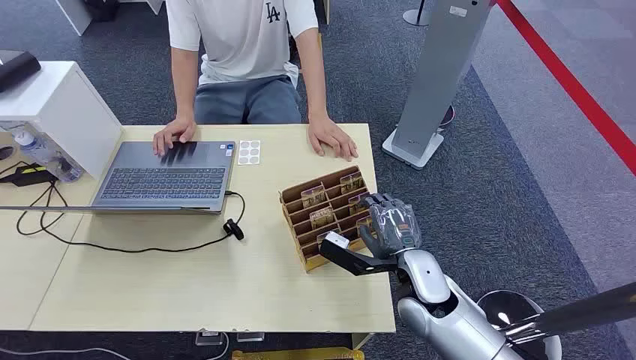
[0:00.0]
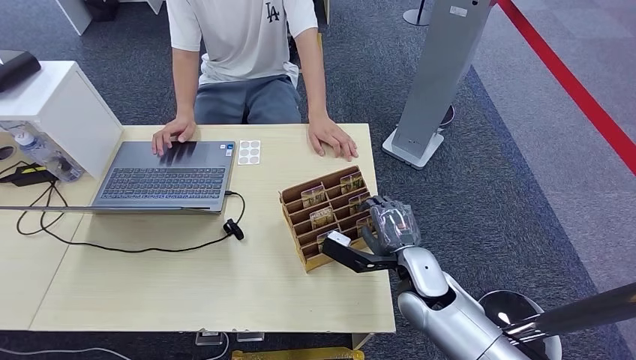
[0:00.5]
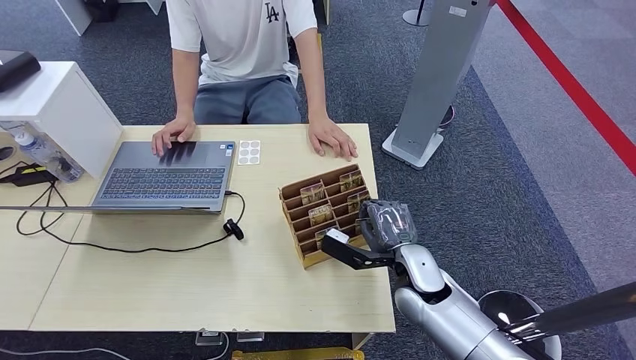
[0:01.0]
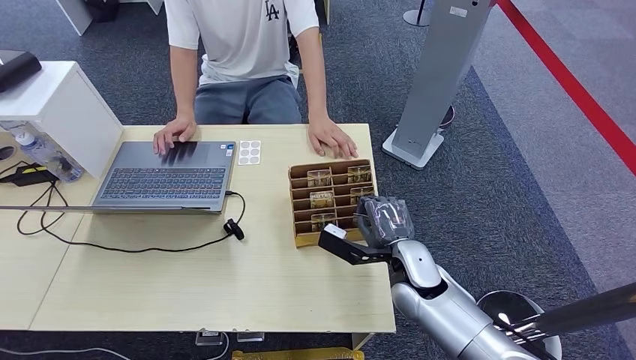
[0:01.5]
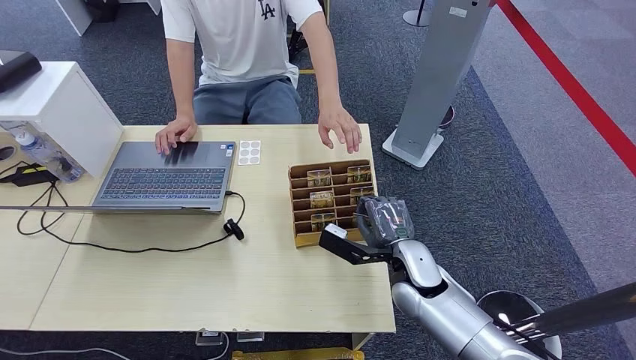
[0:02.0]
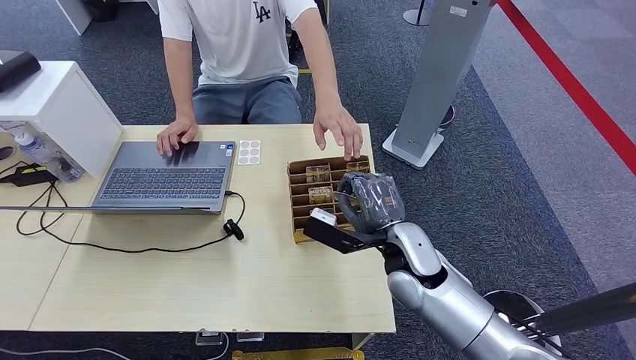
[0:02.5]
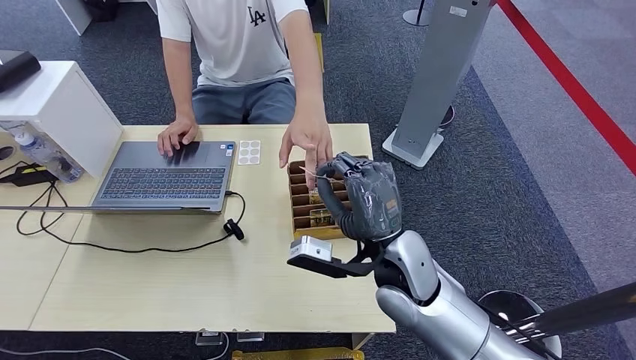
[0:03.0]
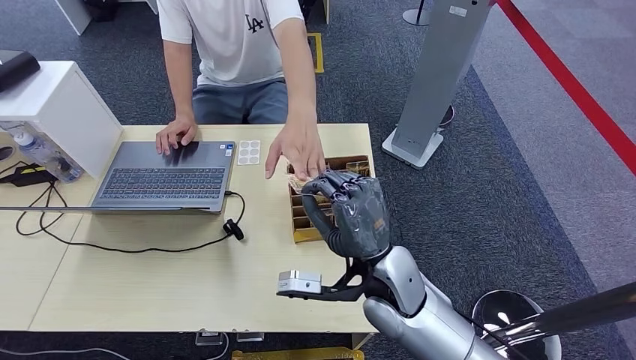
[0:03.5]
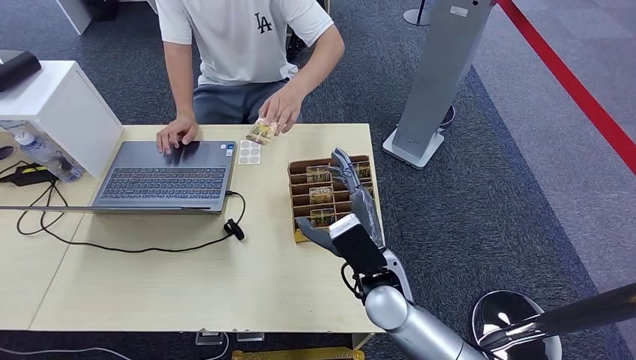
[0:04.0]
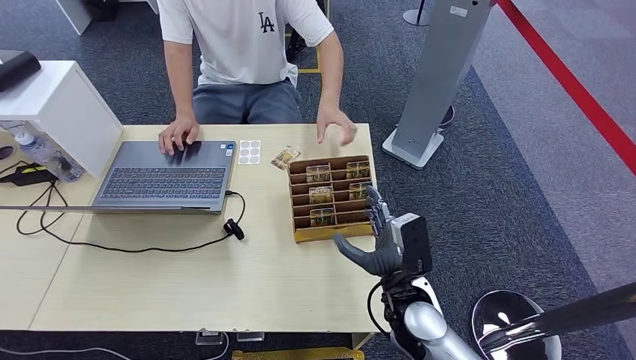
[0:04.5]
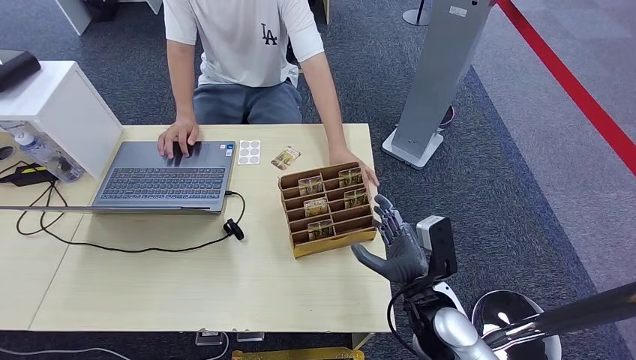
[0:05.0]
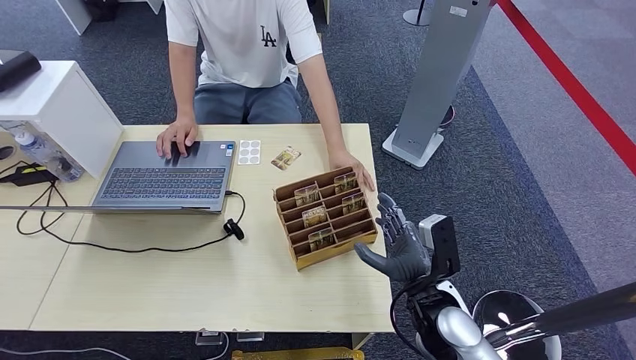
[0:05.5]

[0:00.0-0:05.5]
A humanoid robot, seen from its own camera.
Step, 0:00.0 to 0:03.0: Pick up the key card from the card box.
Step, 0:03.5 to 0:05.5: Hand the key card to the target.
0:02.0 to 0:03.5: The right hand goes approximately 10 cm upward and to the left.
0:03.5 to 0:05.5: The right hand travels to the right and downward by approximately 15 cm.
